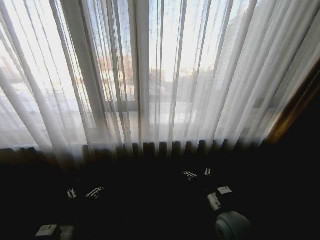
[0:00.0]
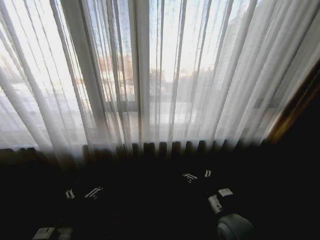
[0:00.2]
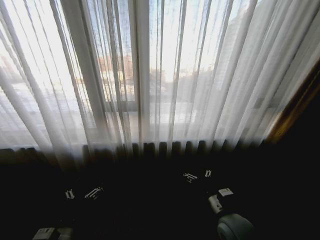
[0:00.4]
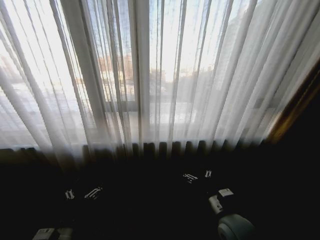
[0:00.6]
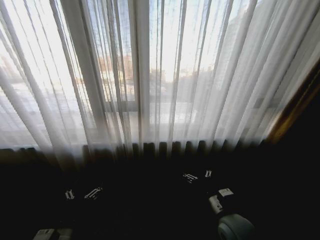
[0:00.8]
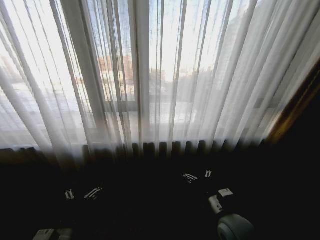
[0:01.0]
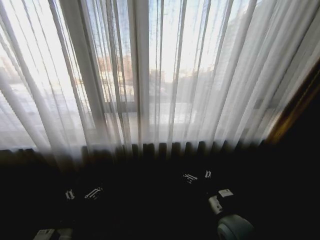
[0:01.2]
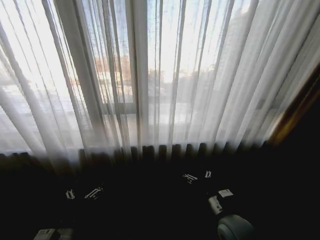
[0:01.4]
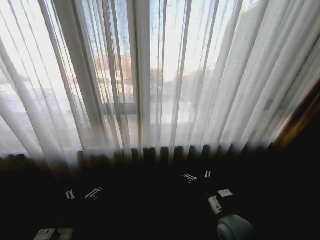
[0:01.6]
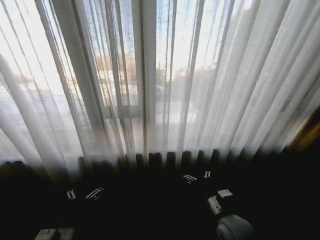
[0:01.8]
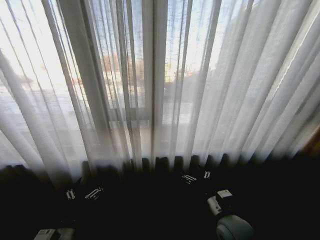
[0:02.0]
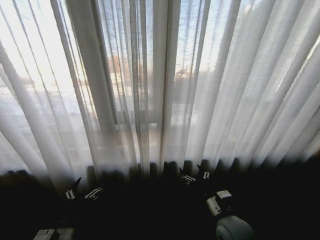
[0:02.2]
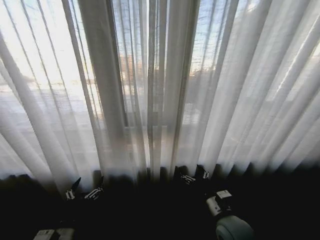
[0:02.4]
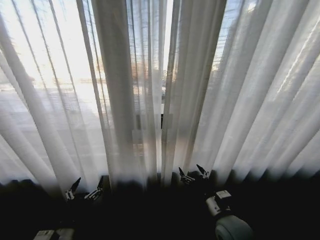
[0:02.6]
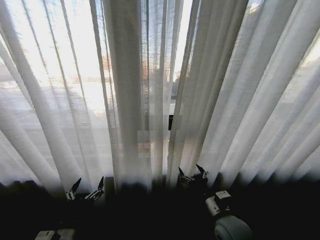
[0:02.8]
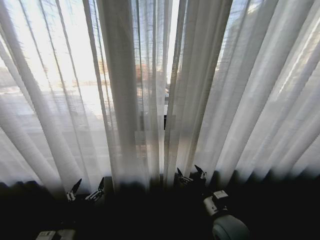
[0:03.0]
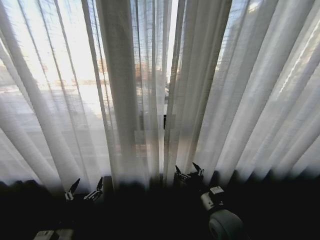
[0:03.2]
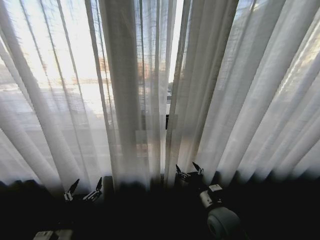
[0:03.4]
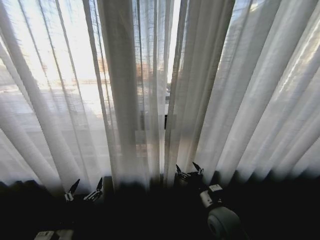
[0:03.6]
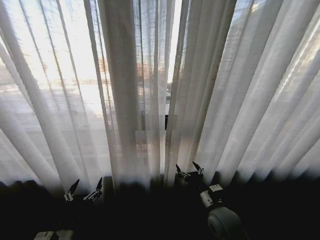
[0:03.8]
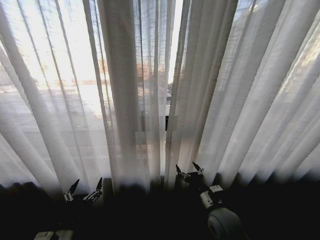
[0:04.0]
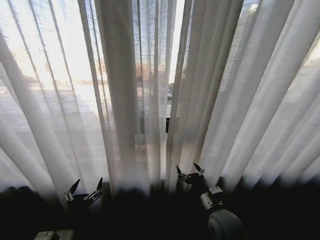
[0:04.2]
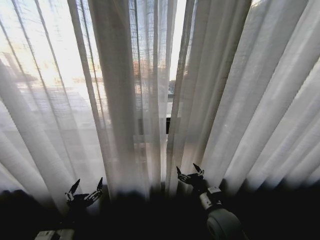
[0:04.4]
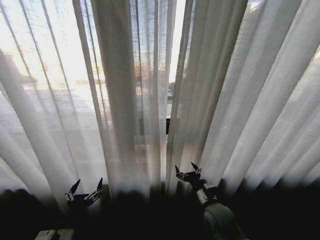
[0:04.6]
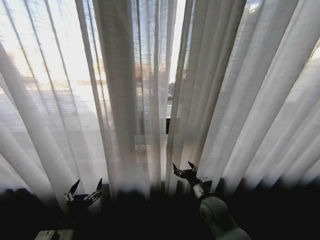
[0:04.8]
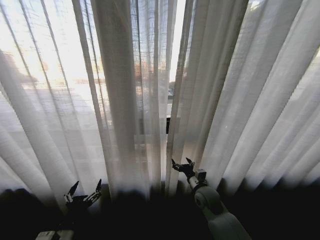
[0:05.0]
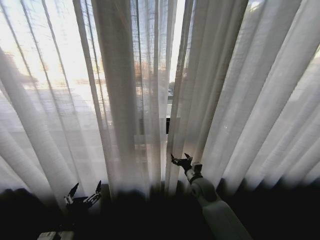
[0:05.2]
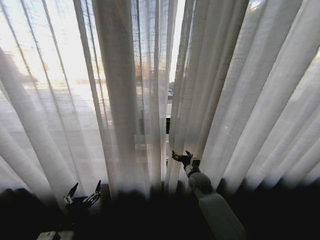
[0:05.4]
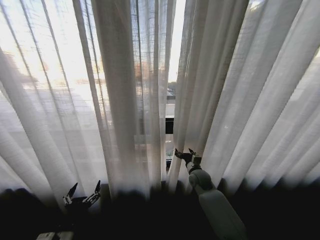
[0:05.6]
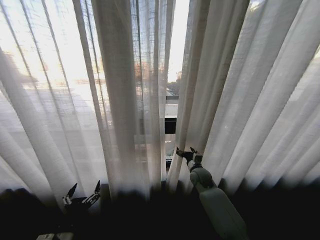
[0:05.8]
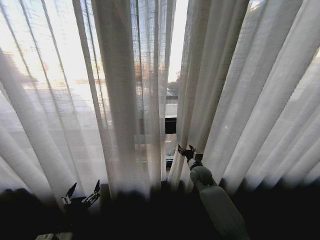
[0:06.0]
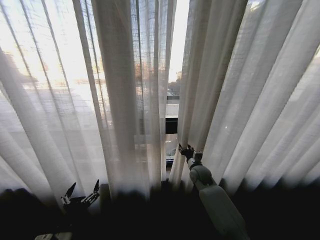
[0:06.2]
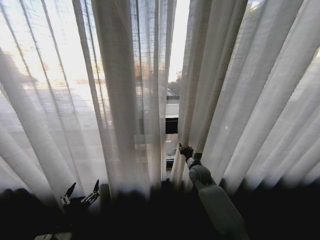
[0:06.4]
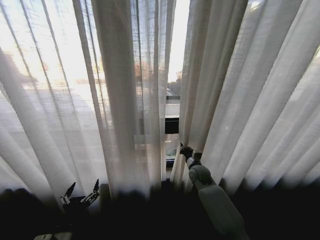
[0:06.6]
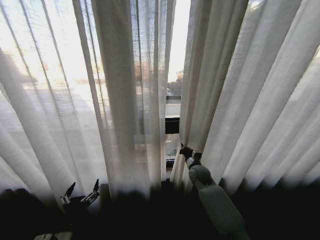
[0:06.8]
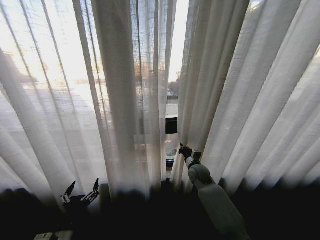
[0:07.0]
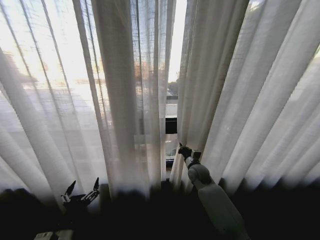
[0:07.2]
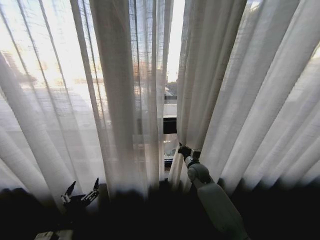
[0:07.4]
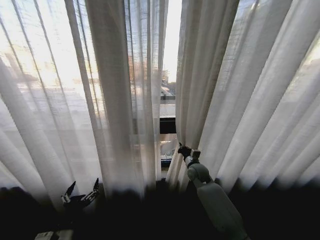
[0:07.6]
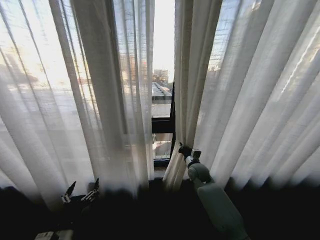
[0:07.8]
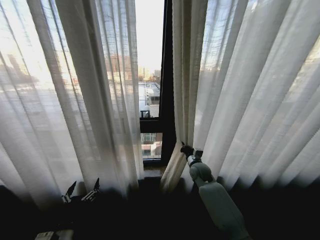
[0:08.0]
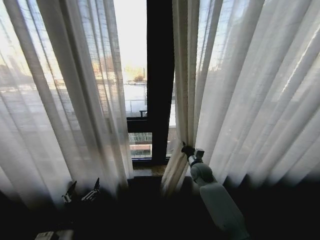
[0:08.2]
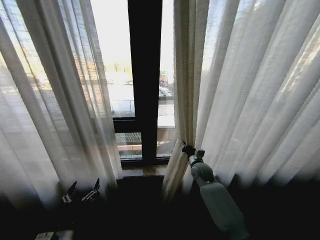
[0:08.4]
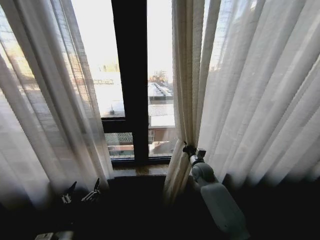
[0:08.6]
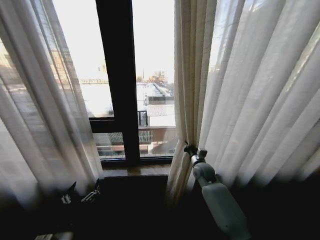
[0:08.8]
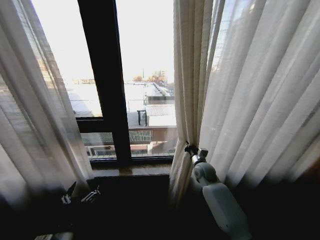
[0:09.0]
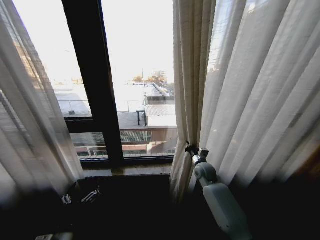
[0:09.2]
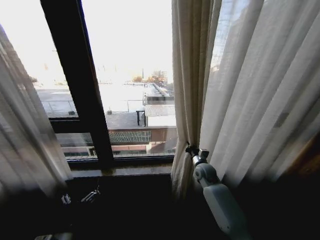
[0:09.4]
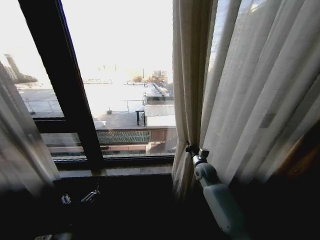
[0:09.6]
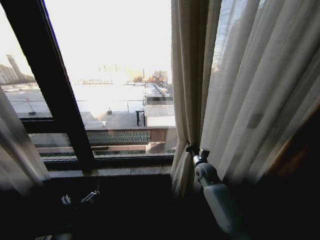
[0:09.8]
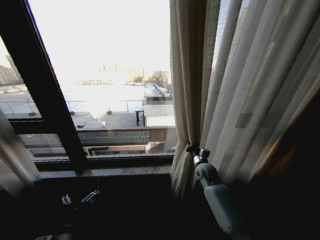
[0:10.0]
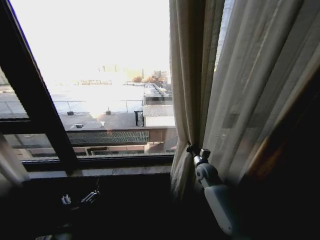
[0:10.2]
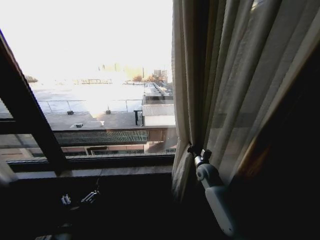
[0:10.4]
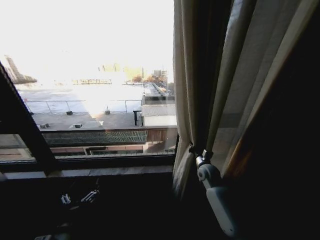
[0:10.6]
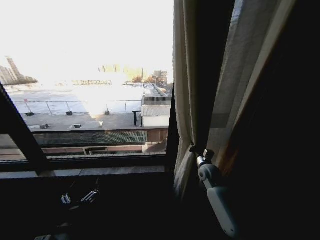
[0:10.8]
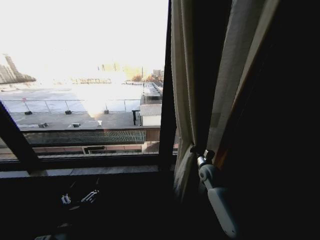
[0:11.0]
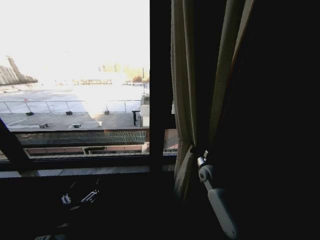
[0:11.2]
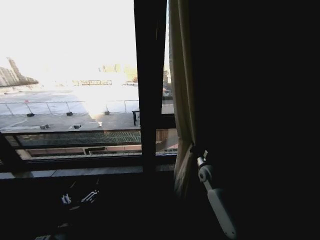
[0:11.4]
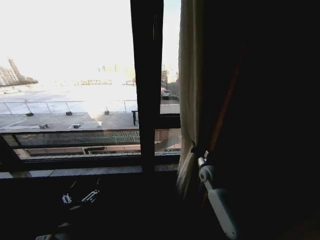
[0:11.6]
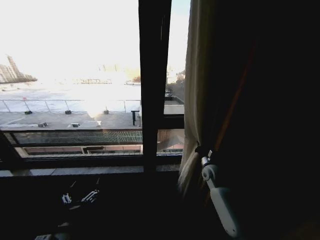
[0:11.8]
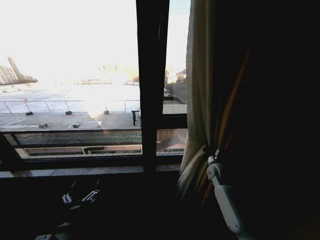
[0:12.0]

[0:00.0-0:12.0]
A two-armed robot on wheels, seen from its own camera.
Task of the whole recording: Open the curtains by pulling them apart, changing their state from closed to fully open.
0:04.4 to 0:06.0: The right gripper is displaced forward by roughly 20 cm.
0:06.0 to 0:07.6: The right gripper closes up.
0:10.4 to 0:12.0: The right gripper is displaced to the right by approximately 5 cm.

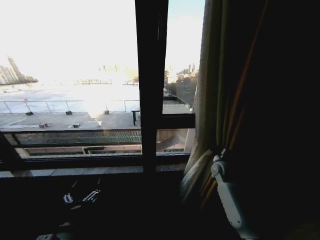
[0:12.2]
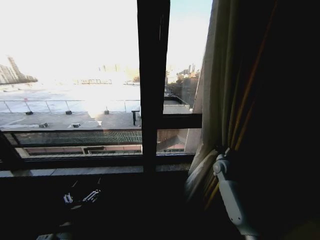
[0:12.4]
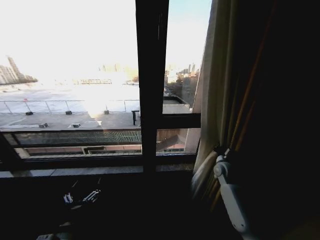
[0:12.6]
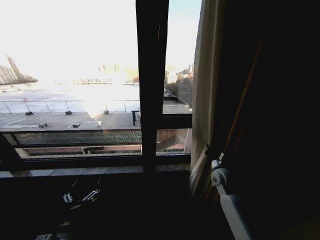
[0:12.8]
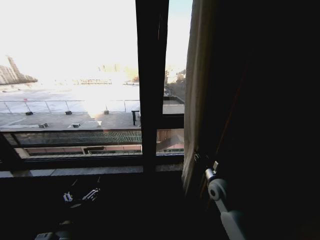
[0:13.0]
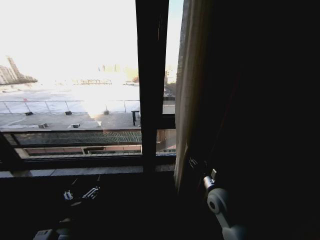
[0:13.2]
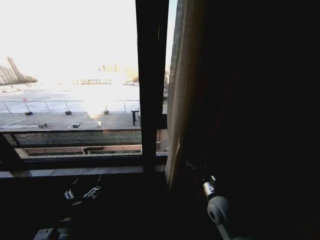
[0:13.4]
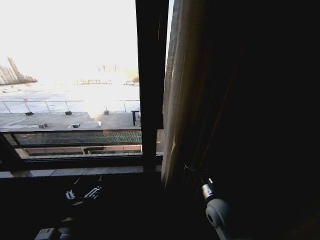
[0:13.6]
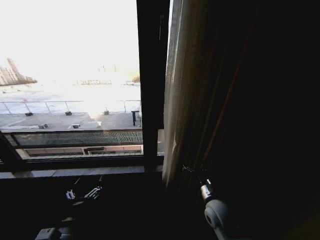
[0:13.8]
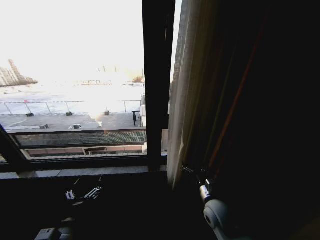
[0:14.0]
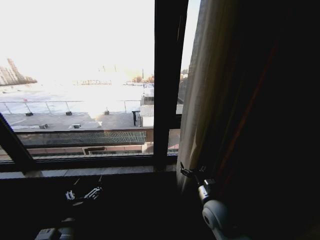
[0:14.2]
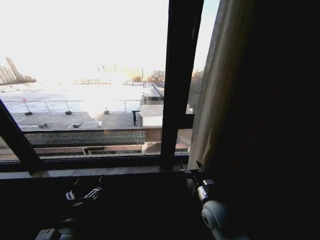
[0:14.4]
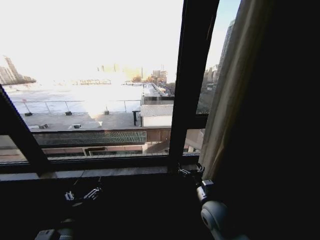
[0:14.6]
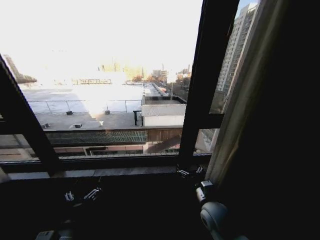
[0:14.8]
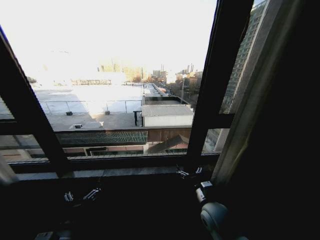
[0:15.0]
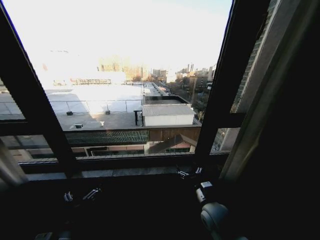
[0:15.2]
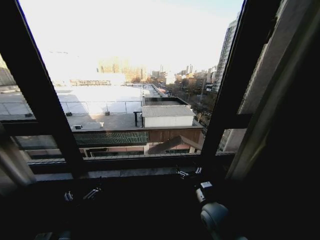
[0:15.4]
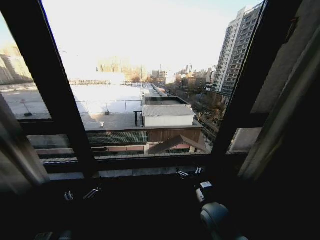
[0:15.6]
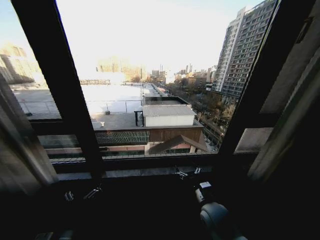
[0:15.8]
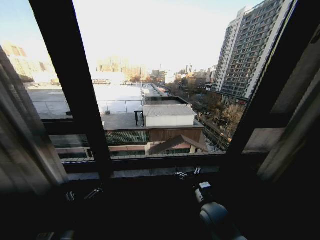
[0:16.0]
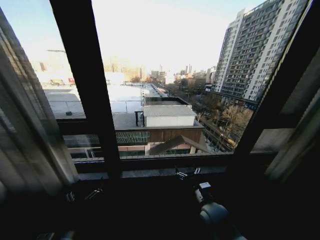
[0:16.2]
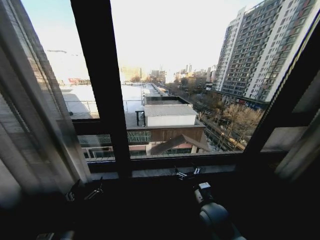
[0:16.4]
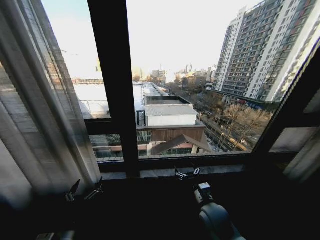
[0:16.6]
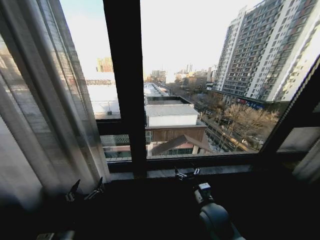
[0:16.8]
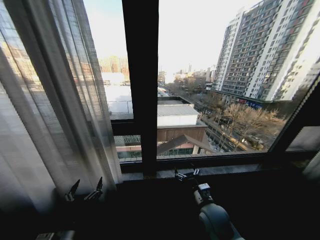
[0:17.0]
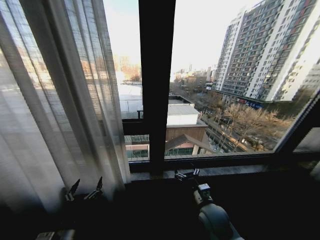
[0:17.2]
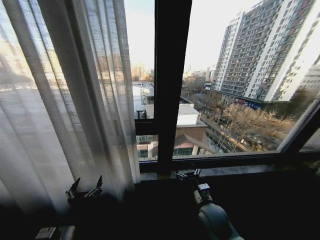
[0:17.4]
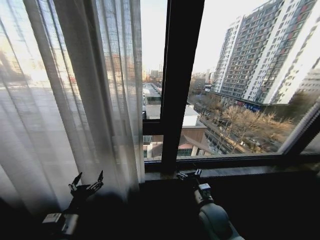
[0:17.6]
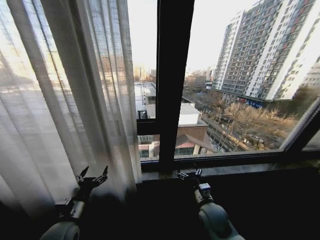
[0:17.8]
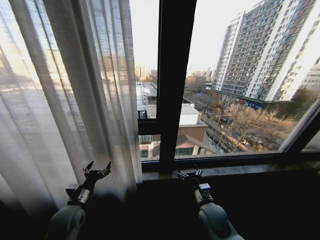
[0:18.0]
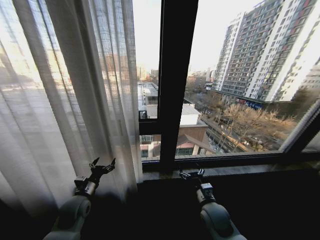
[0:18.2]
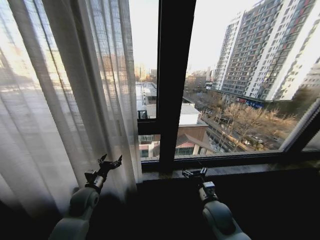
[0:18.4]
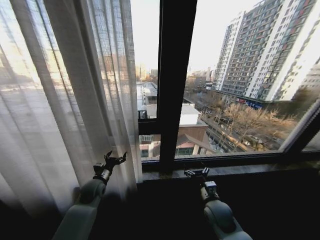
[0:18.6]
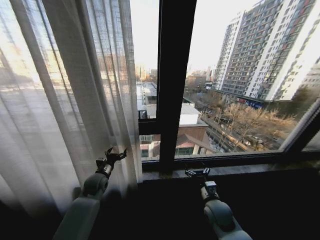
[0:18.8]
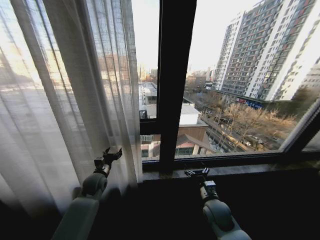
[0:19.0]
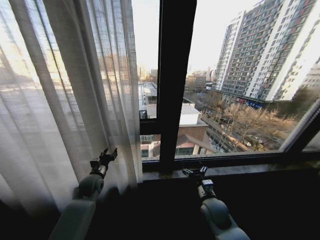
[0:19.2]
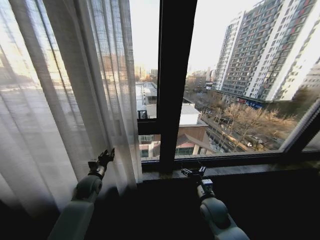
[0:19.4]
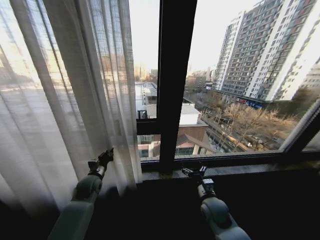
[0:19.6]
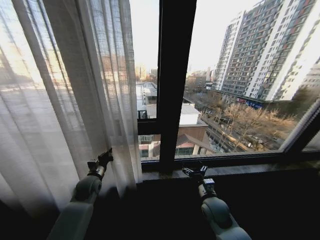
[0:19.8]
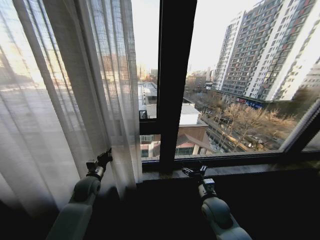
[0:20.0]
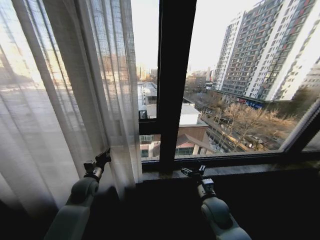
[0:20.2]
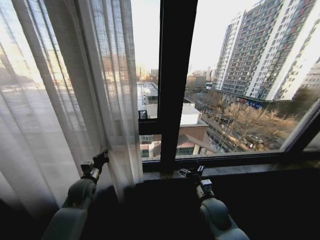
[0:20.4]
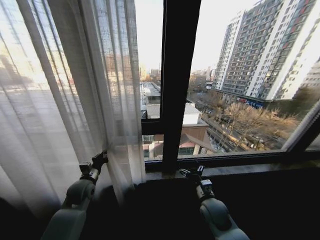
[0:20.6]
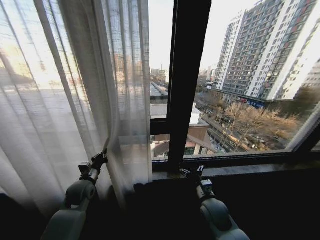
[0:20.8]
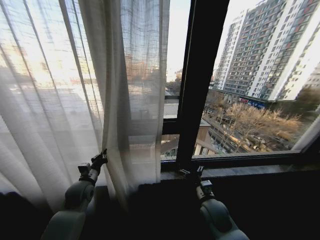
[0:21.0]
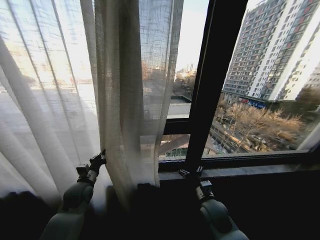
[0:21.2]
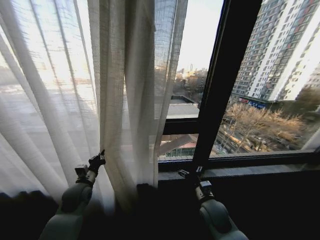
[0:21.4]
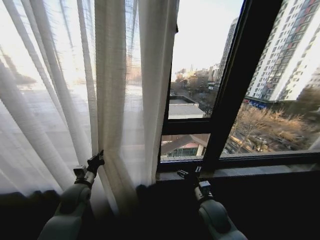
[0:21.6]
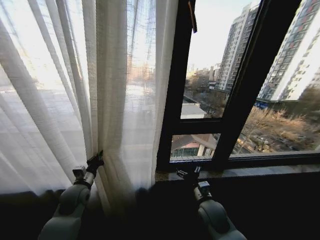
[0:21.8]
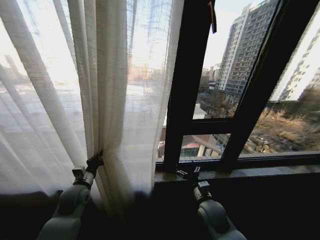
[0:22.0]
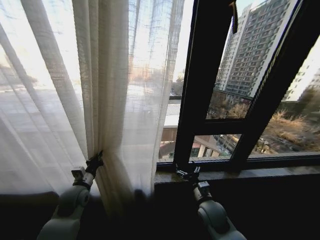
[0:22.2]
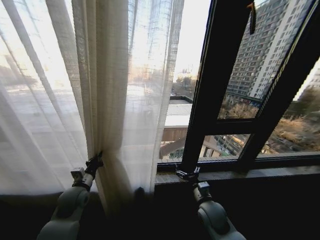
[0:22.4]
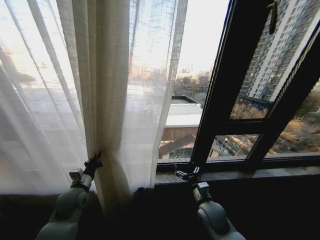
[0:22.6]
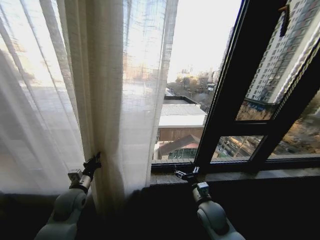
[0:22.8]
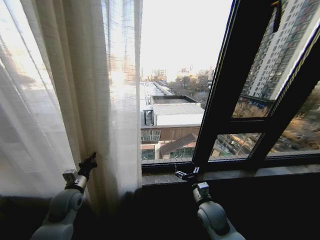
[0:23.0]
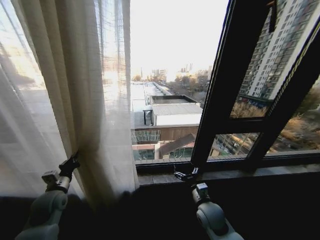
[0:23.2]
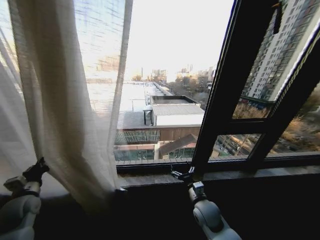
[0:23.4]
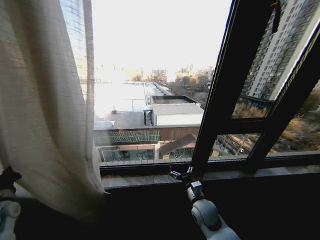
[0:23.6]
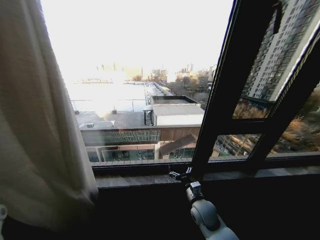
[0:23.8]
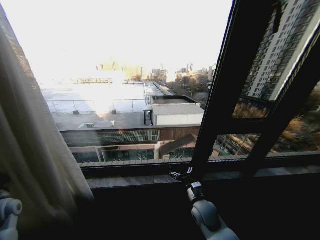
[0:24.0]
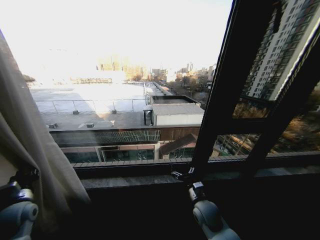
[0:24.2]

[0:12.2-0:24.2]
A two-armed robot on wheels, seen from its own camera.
Task of the whole recording: Open the curtains by pulling them apart, changing their state from closed to fully open.
0:12.2 to 0:13.8: The right gripper shifts some 20 cm backward and to the left, and opens up.
0:16.6 to 0:18.2: The left gripper shifts about 15 cm forward.
0:18.2 to 0:19.8: The left gripper travels forward by approximately 10 cm, and closes.
0:22.6 to 0:24.2: The left gripper goes roughly 15 cm to the left, and opens.
